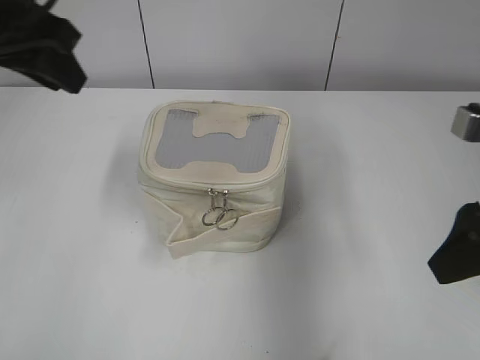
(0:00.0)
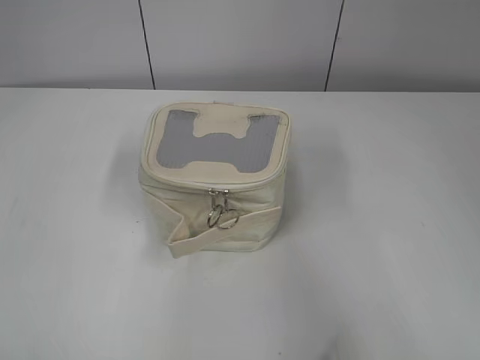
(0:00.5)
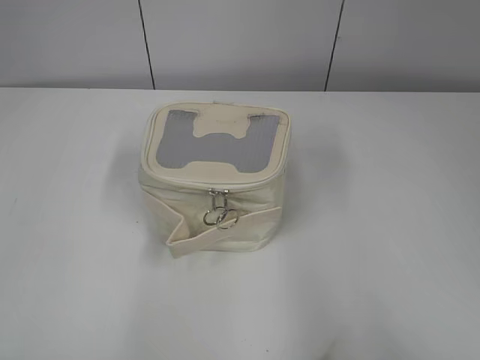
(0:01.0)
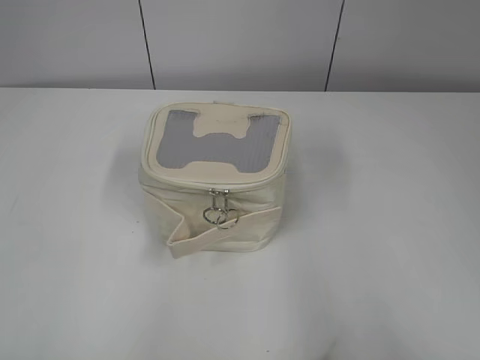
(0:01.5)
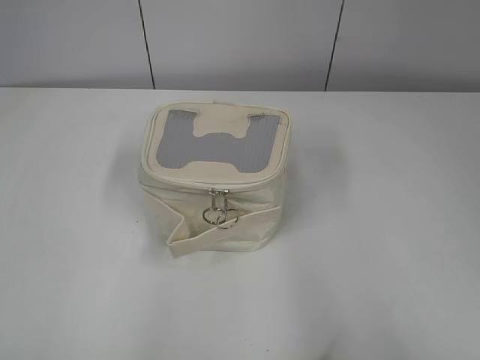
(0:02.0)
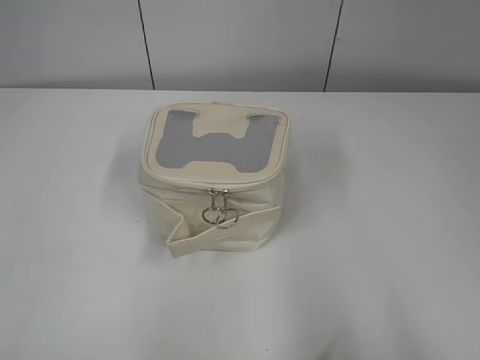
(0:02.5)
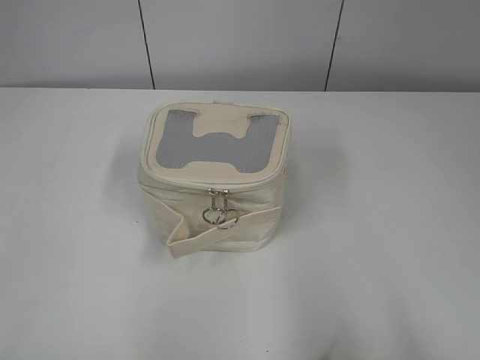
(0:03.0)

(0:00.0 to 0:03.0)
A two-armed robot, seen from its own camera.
0:00.0 - 0:01.5: The two grippers go approximately 25 cm backward.

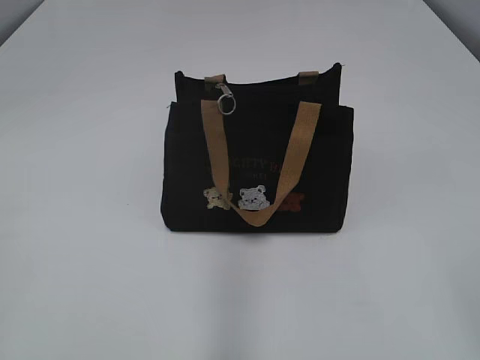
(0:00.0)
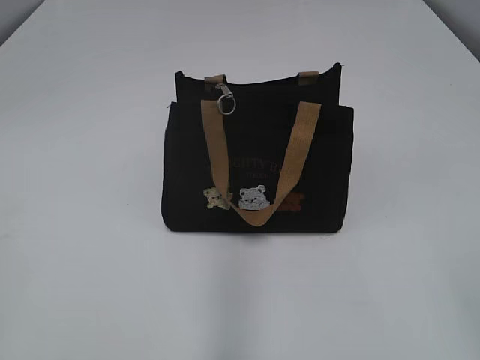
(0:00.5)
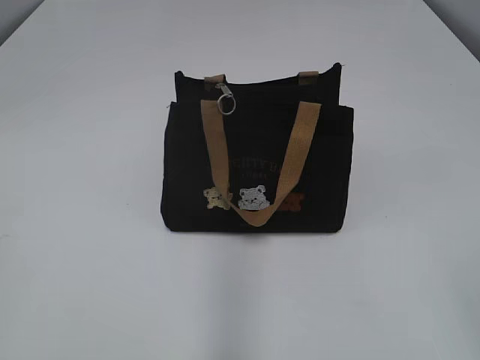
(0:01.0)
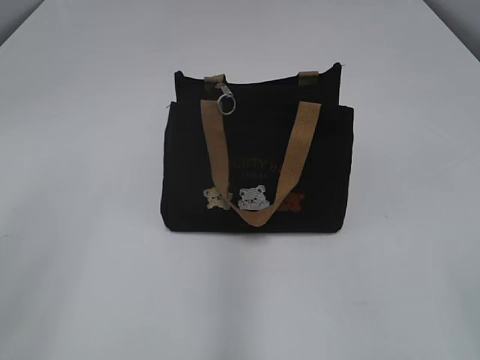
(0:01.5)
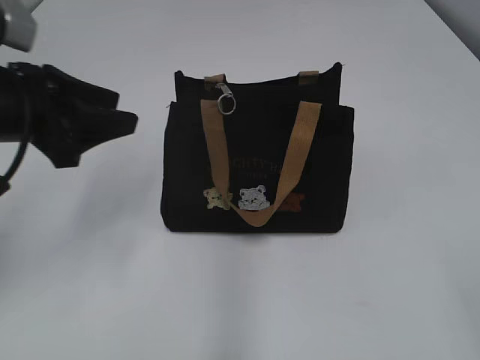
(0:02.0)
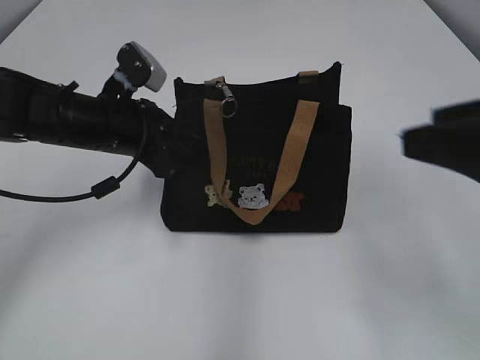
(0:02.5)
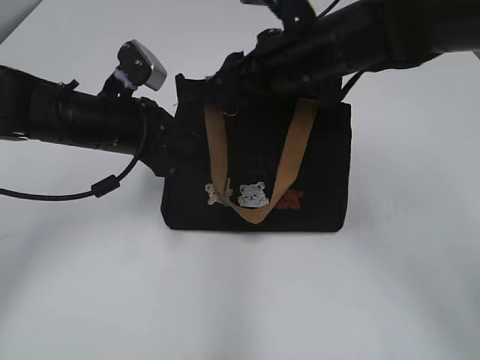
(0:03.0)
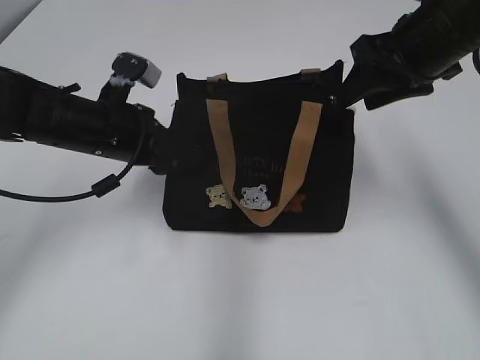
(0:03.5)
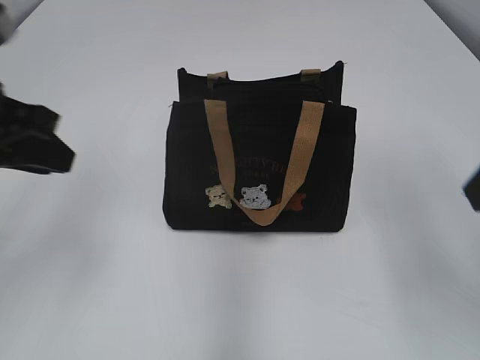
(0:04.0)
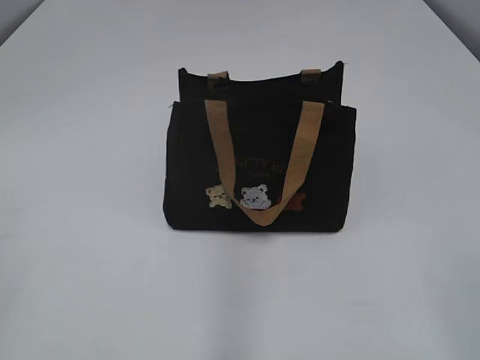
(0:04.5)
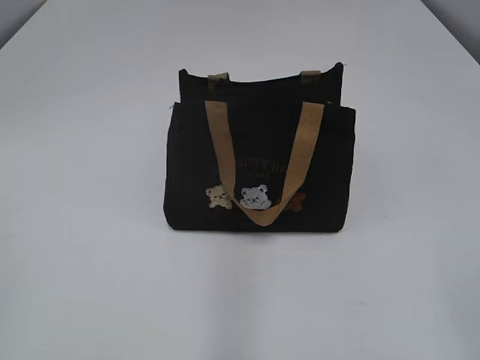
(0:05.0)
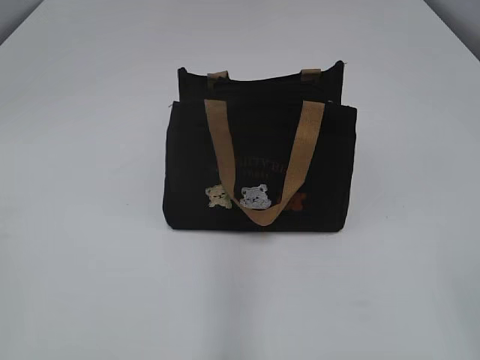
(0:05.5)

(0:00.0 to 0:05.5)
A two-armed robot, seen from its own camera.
Step, 0:00.0 - 0:03.0: Pull open the zipper with your right hand.
0:02.0 - 0:03.5: The right gripper shifts some 40 cm forward, and closes up, while the left gripper is displaced forward, downward and to the right by about 20 cm, and closes up.
0:03.5 - 0:05.5: The left gripper is displaced backward and to the left by some 40 cm. Meanwhile the right gripper travels backward by approximately 40 cm, and opens up.
